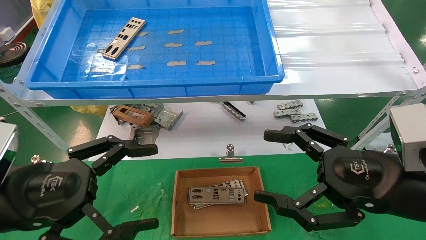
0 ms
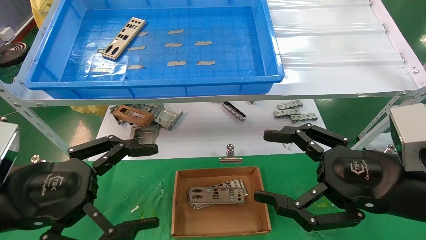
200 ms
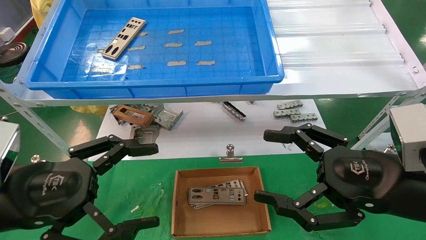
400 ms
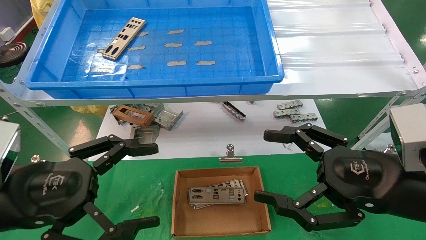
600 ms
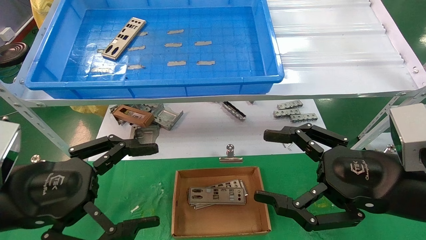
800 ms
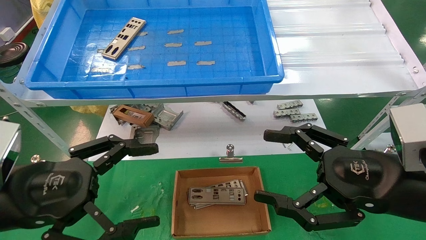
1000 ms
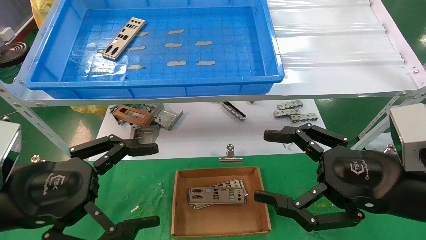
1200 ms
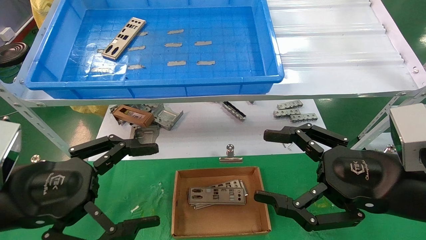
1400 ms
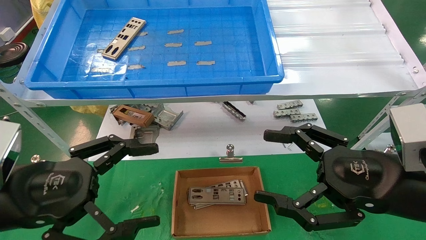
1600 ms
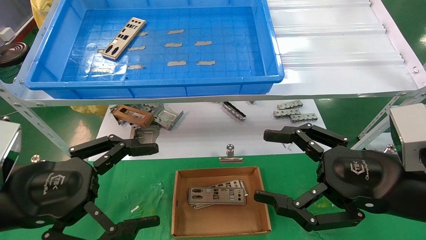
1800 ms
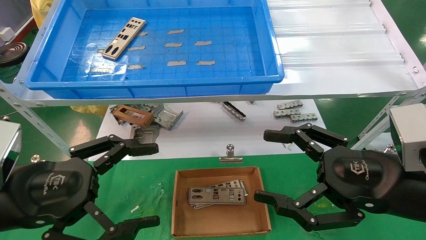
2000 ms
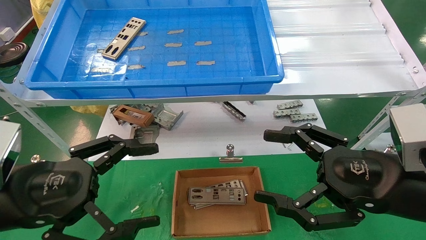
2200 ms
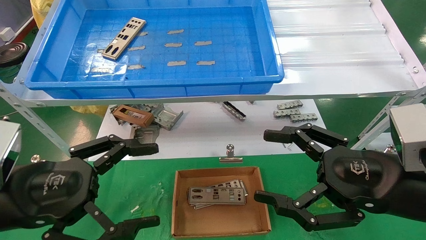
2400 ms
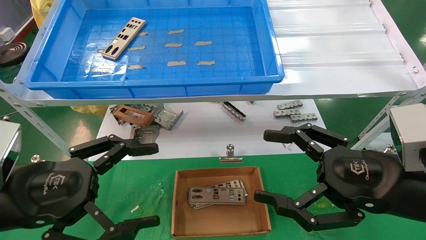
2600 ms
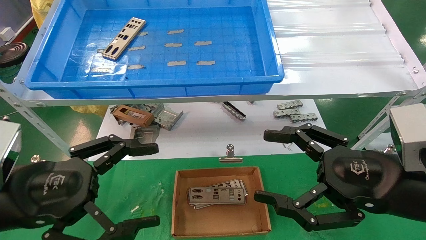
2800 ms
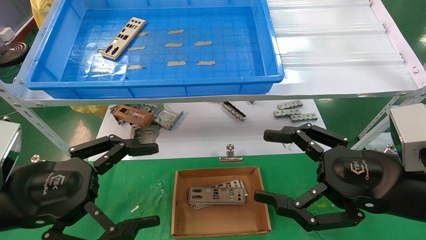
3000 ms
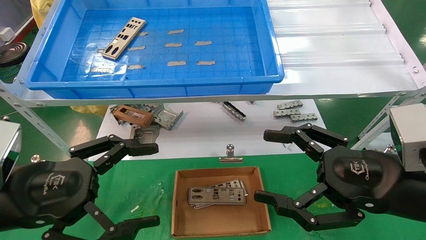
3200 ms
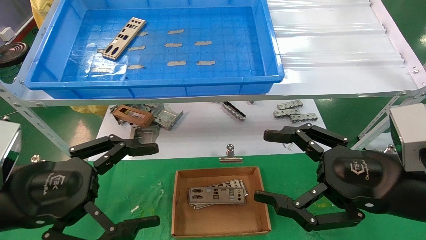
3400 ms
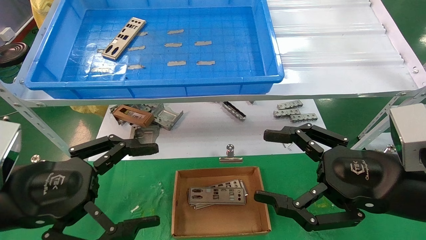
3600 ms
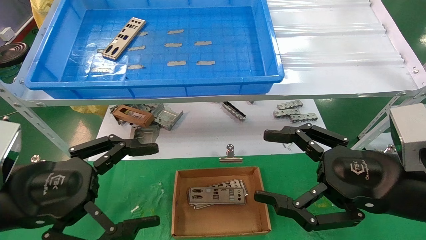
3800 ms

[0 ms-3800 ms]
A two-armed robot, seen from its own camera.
Task of the whole recording: pick up the parts on the tray and put them in the cardboard box.
0 ms to 3800 ms: The two grippers keep their place.
